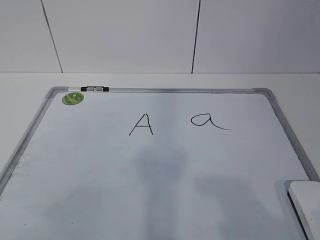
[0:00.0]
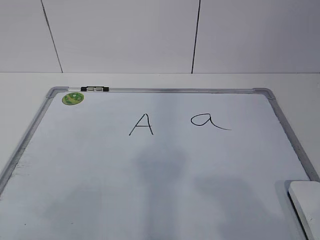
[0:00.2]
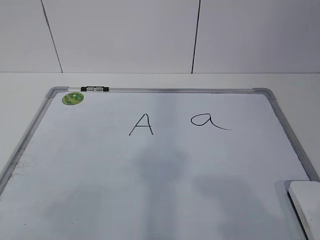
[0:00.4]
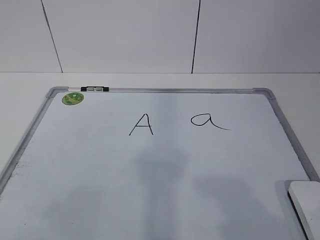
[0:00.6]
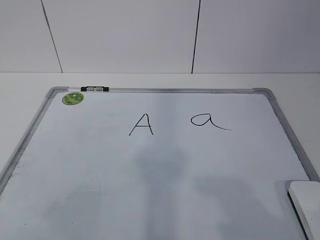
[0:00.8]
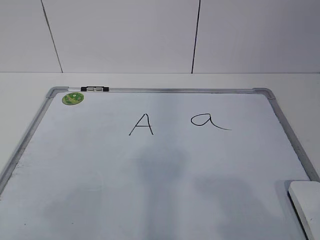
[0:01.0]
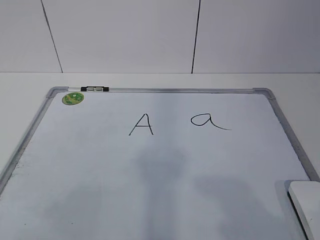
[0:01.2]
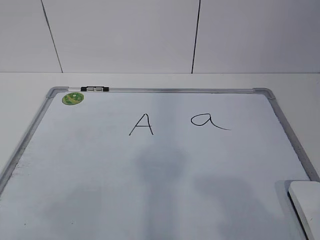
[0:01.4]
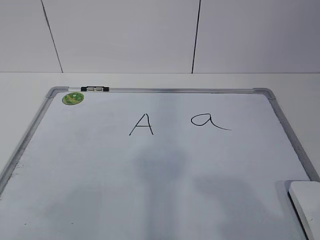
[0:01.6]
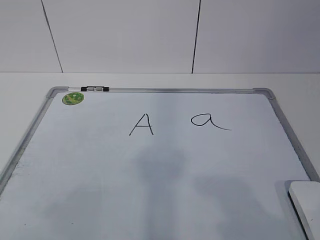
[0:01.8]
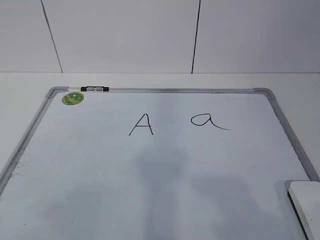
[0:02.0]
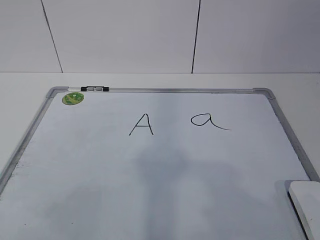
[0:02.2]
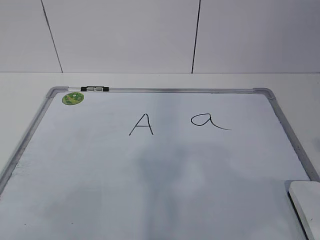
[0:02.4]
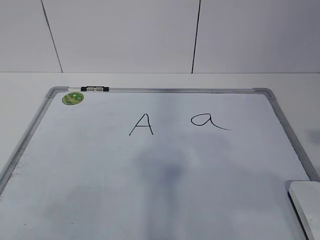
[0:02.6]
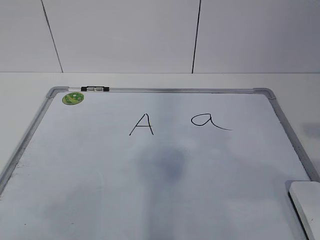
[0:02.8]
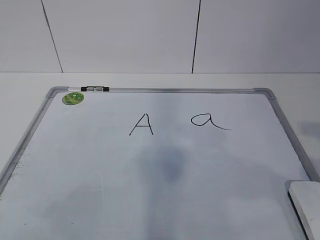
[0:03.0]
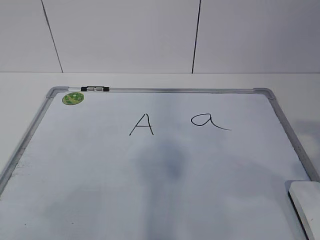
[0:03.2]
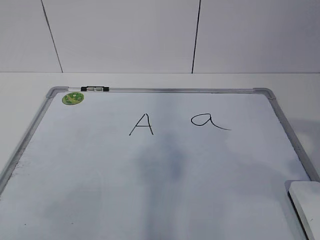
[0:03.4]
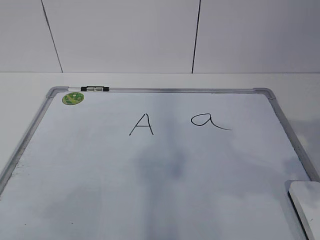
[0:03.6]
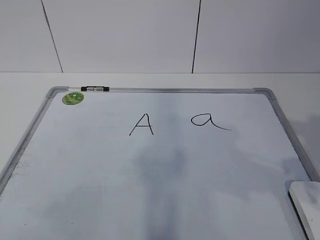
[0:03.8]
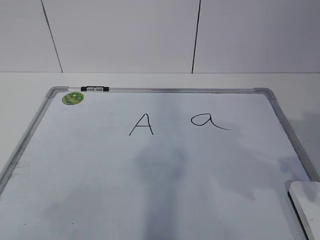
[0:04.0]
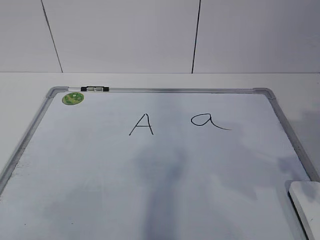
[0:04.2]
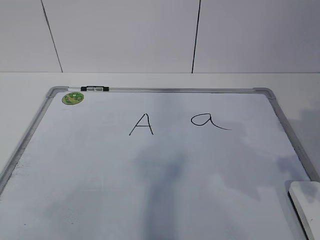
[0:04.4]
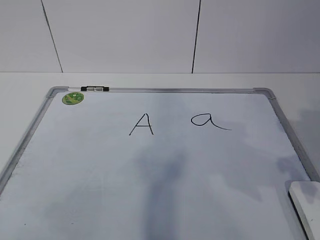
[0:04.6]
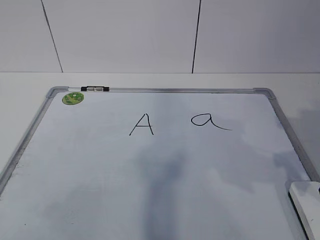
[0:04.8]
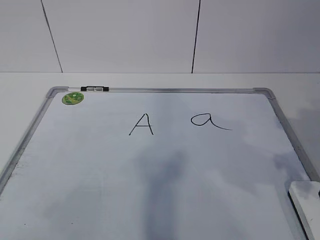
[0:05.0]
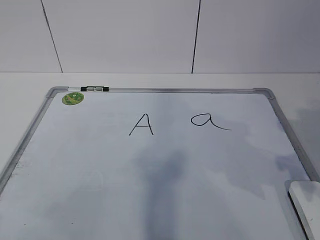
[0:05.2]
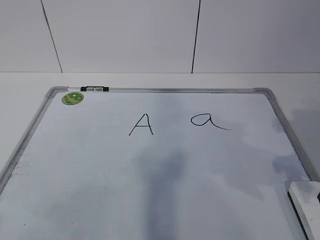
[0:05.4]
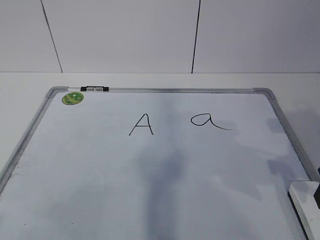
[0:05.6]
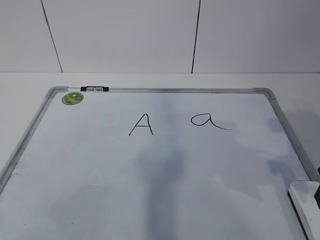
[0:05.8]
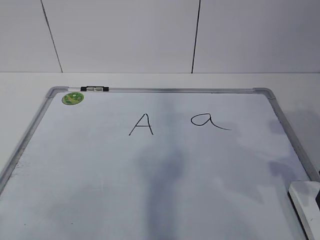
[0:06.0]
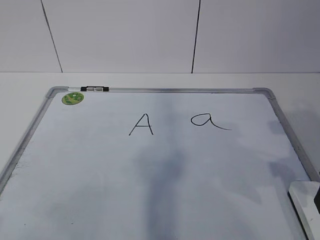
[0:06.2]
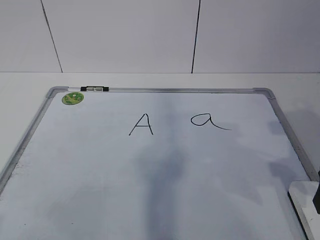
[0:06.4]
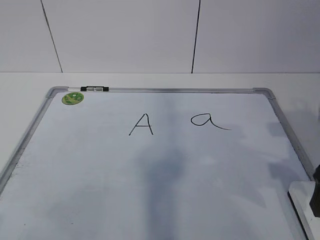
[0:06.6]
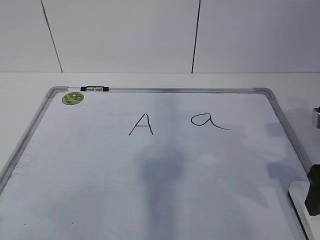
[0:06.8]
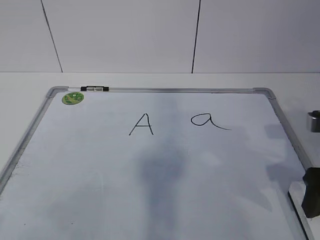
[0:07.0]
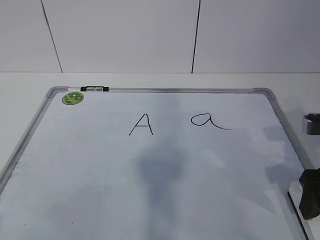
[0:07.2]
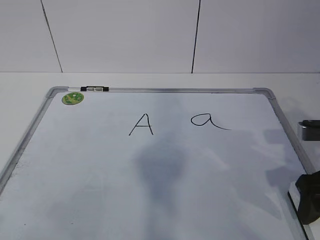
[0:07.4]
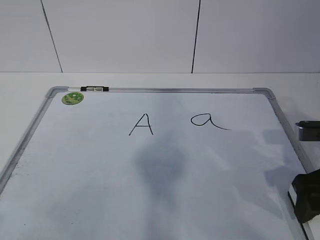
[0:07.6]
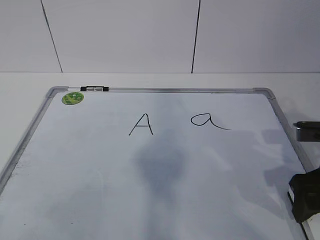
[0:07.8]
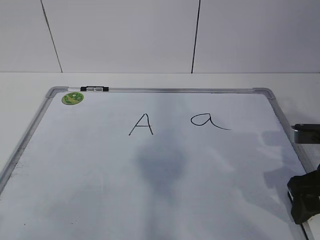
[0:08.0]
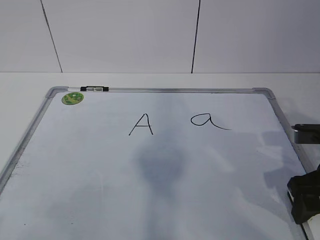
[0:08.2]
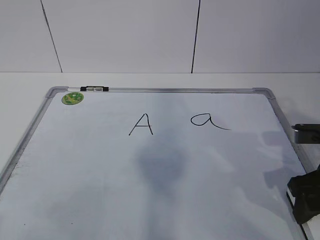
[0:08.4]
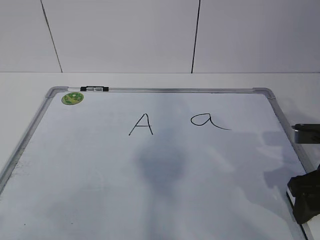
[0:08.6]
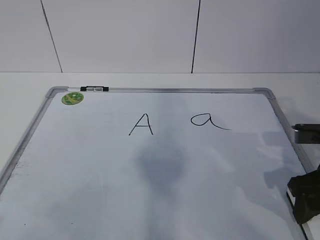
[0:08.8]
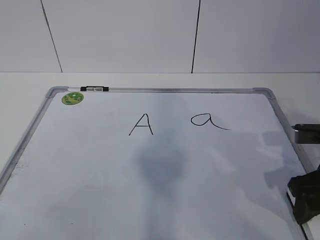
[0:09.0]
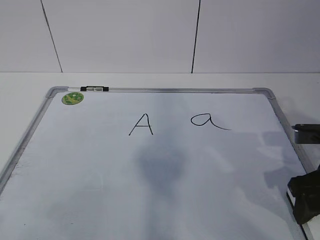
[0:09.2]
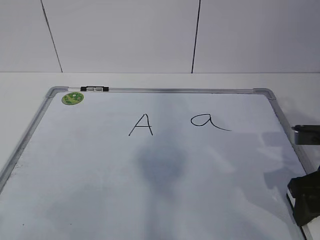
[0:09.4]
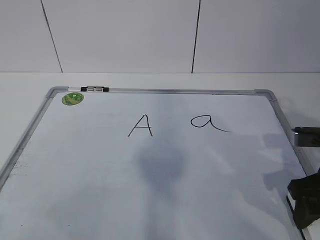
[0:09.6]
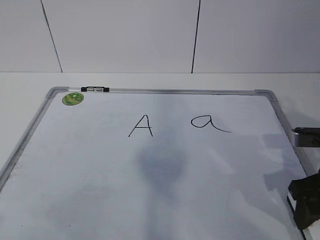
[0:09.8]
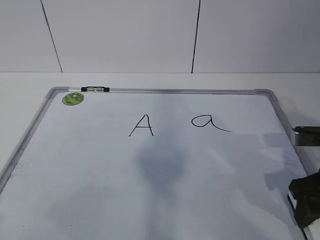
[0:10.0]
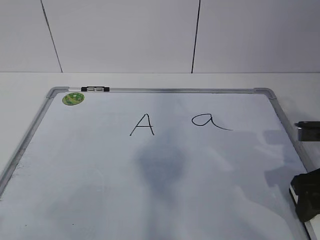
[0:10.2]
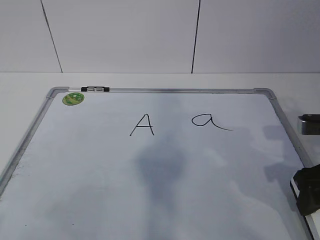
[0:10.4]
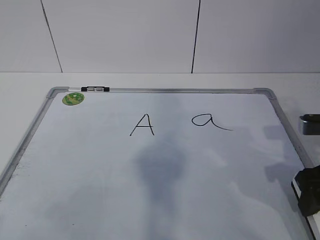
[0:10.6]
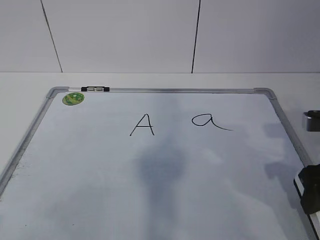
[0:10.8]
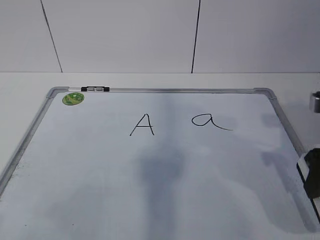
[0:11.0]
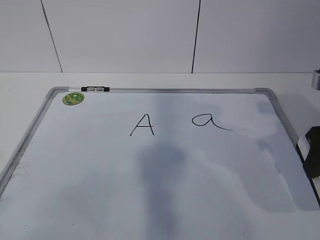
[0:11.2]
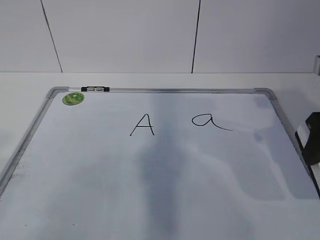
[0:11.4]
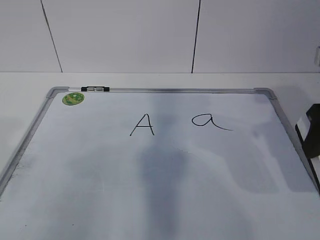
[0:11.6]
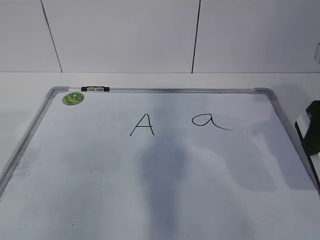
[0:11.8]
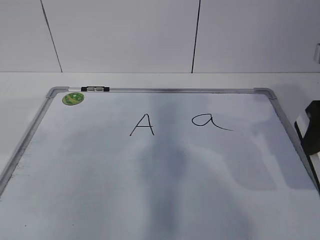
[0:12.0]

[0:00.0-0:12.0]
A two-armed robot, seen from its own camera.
Task of the whole recording: pick up the eraser on the blackboard and erase the letter "a".
0:03.0 to 0:04.4: The right gripper heads forward and downward, covering some 10 cm.
0:06.0 to 0:07.6: The right gripper is displaced downward by some 5 cm, and opens.
0:07.6 to 0:09.0: The right gripper closes.
0:09.0 to 0:10.4: The grippers make only small movements.
0:10.4 to 0:12.0: The right gripper heads upward, covering approximately 10 cm.

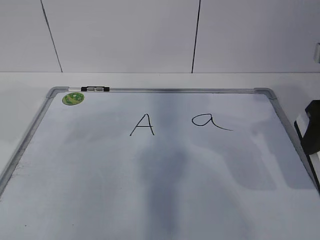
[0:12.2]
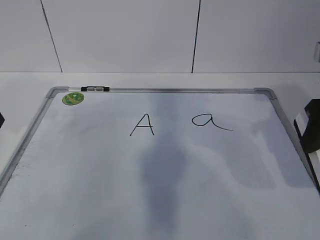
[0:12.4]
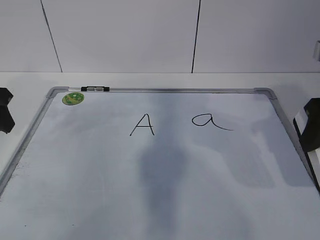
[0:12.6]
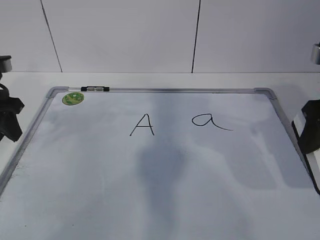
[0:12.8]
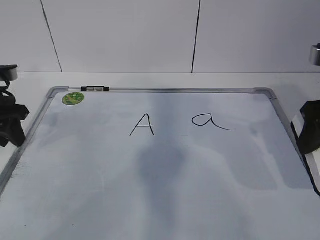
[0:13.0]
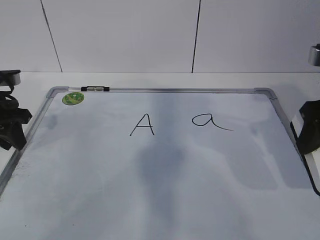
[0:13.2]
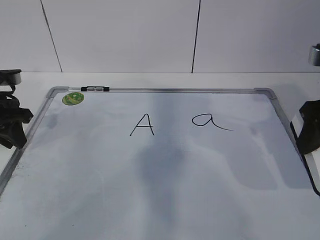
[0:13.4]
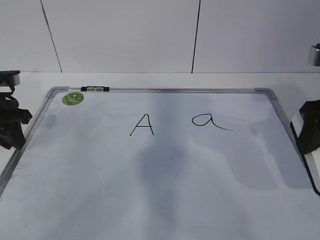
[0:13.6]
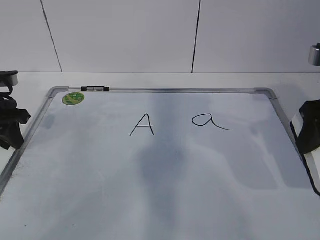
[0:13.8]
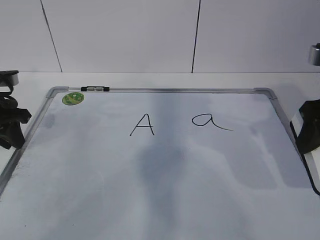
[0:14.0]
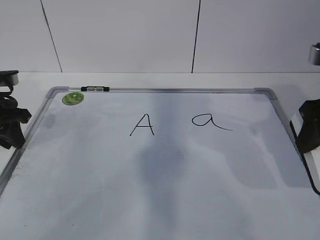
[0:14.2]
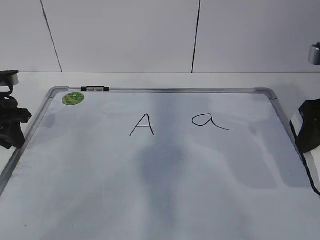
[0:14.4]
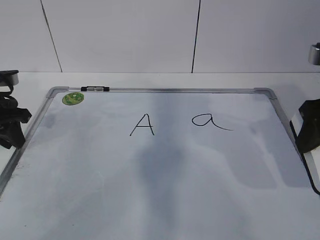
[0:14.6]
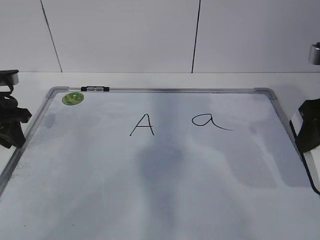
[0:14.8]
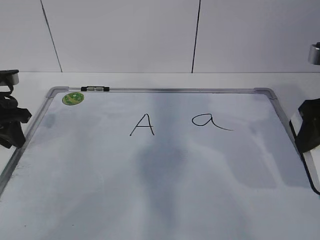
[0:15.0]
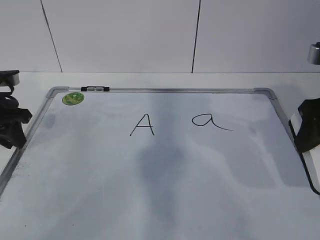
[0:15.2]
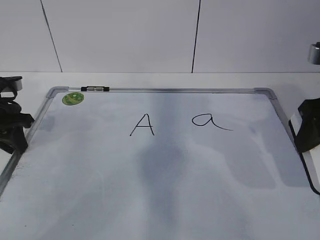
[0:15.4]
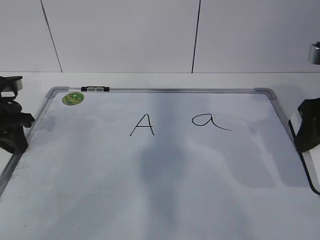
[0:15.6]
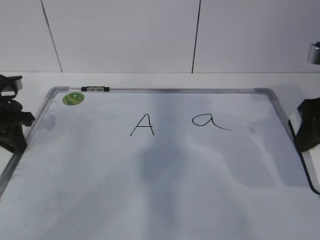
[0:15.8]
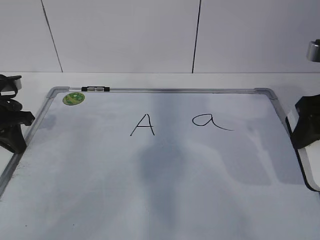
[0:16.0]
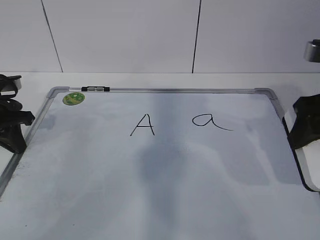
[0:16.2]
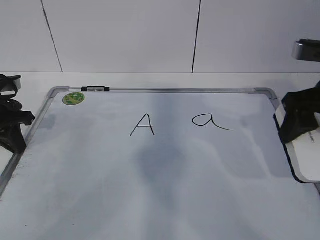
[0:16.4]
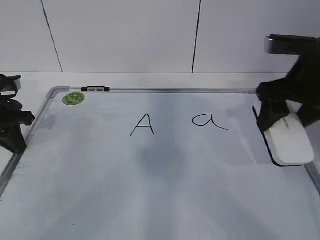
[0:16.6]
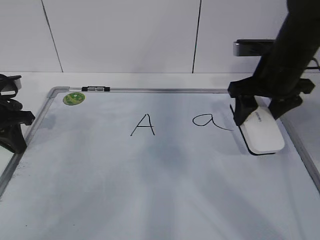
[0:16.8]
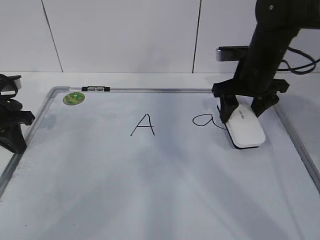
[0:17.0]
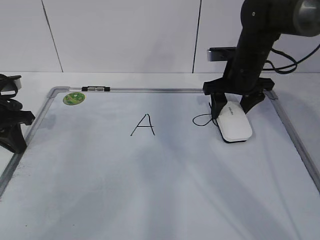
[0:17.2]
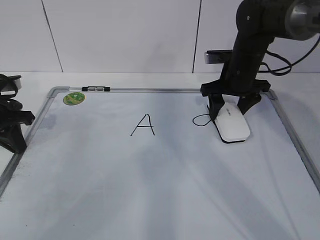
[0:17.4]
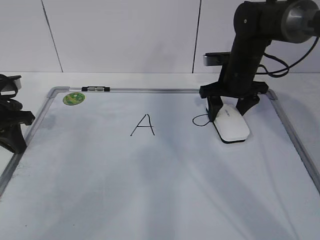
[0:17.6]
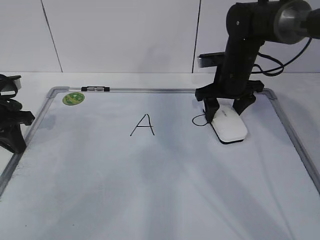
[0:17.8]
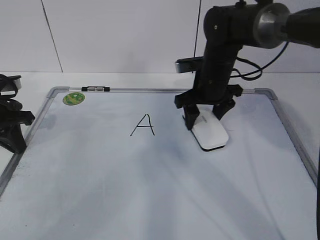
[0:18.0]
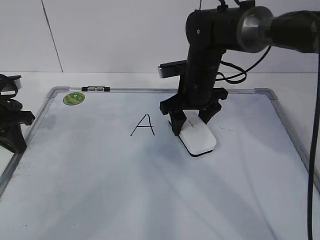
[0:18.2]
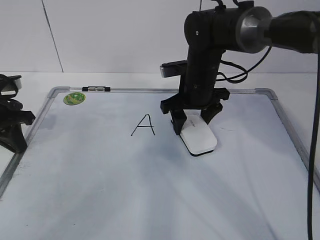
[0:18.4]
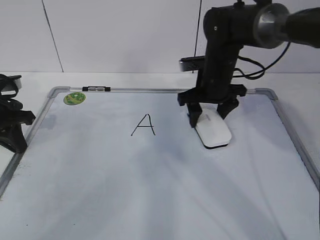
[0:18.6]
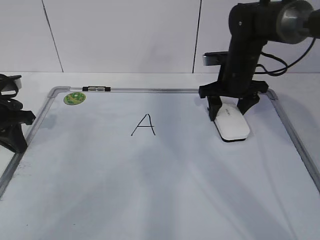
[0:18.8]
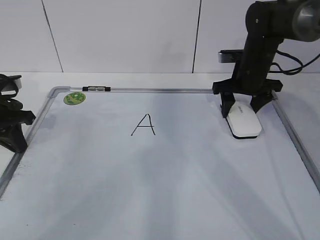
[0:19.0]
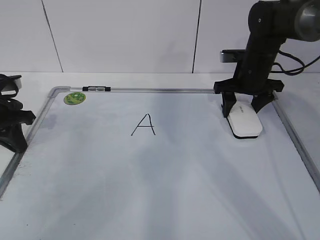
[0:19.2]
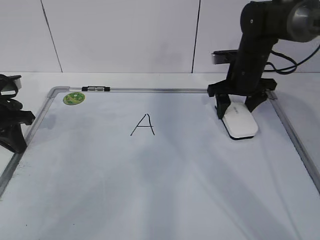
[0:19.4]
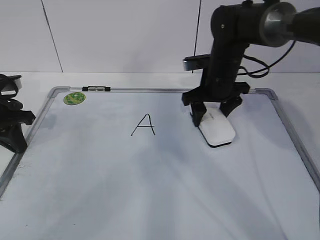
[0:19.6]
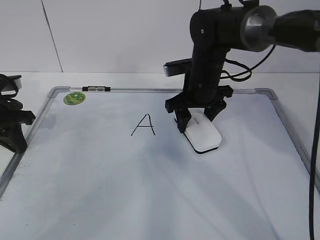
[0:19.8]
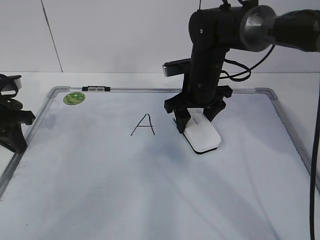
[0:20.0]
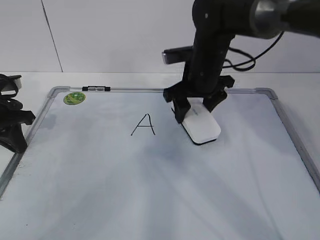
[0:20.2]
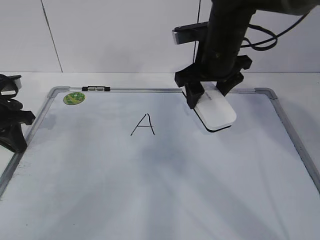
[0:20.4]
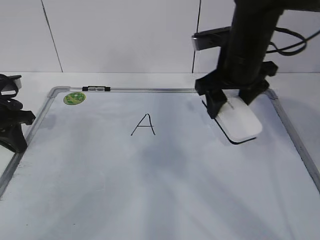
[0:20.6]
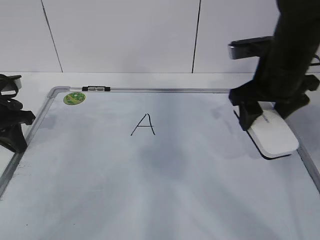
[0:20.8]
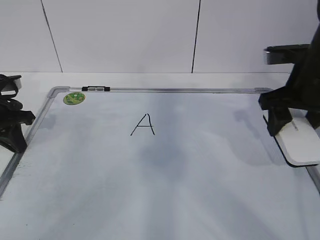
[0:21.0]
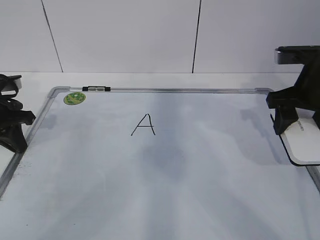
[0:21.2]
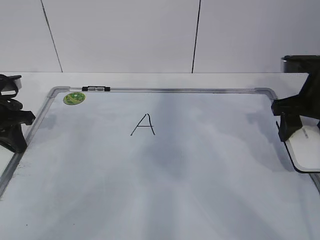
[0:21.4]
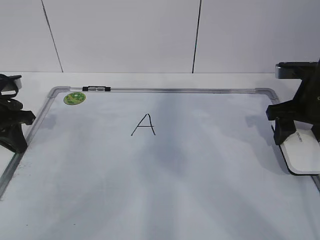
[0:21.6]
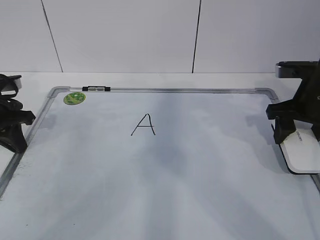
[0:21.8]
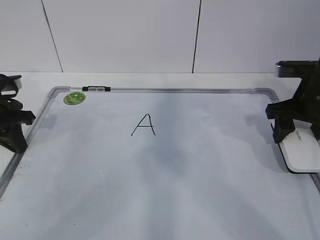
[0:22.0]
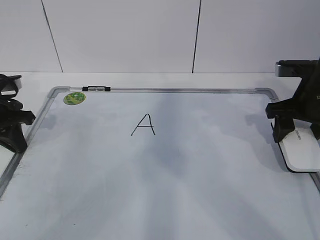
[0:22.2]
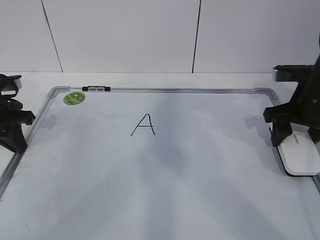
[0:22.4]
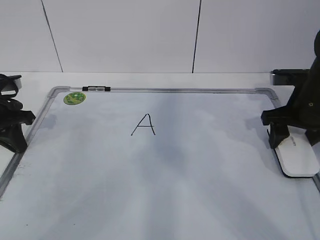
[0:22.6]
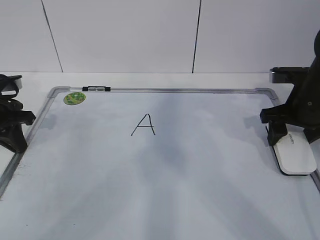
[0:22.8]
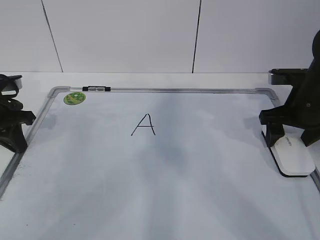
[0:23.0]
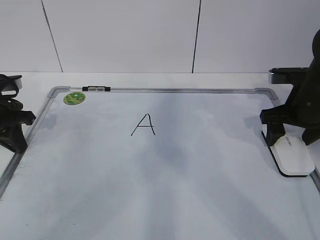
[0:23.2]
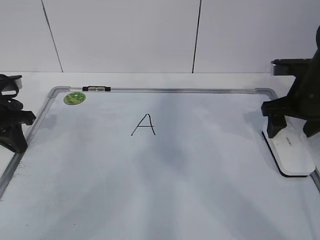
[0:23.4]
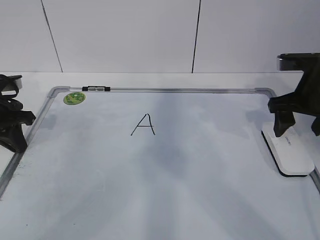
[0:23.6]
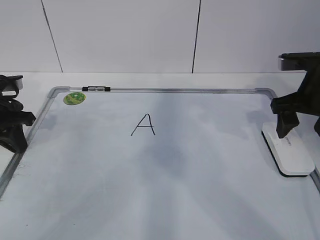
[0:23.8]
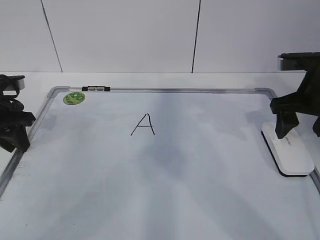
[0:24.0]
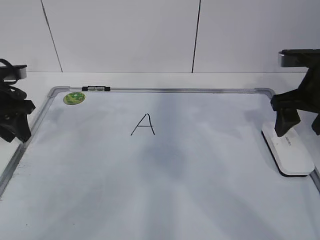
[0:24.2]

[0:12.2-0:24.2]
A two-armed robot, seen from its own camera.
Task of the whole recording: pick up the eraser on the blackboard and erase the letter "a".
Step, 0:13.6 to 0:16.6: Erase the letter a with your right hand.
Step, 0:16.8 to 0:19.0: Put down the eraser with your right hand.
0:12.2 to 0:13.8: The left gripper heads forward and downward, covering approximately 15 cm, and closes.
0:13.8 to 0:15.2: The two grippers keep their place.
0:15.2 to 0:16.6: The right gripper travels forward by about 5 cm. Meanwhile the left gripper closes up.
0:16.6 to 0:18.2: The right gripper shifts approximately 20 cm to the left, forward and downward.
0:18.2 to 0:19.8: The right gripper moves roughly 10 cm to the right and comes back.
0:19.8 to 0:21.2: The right gripper travels to the right, backward and upward by roughly 20 cm.
0:21.2 to 0:22.6: The right gripper travels downward by roughly 5 cm.
0:22.6 to 0:24.2: The right gripper opens its fingers, while the left gripper opens.
